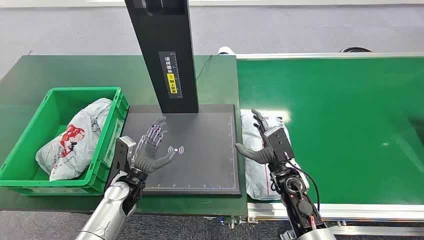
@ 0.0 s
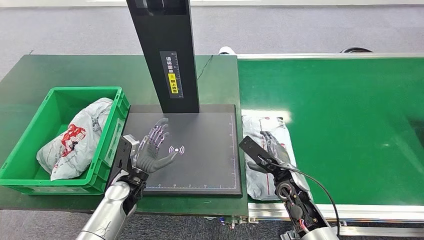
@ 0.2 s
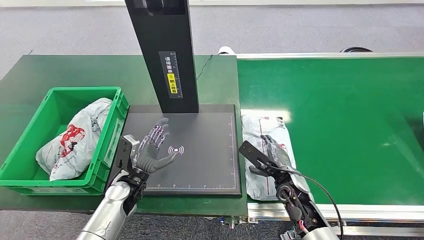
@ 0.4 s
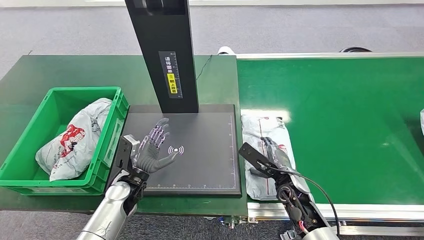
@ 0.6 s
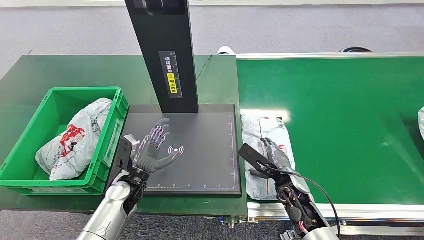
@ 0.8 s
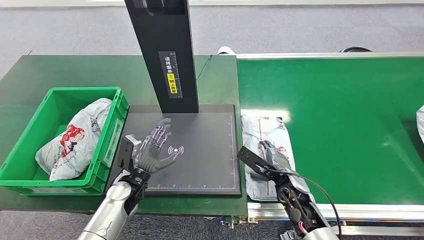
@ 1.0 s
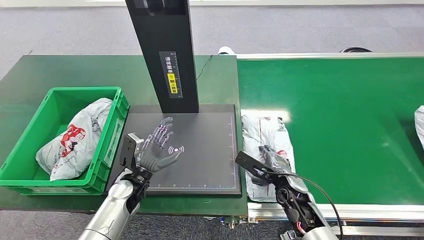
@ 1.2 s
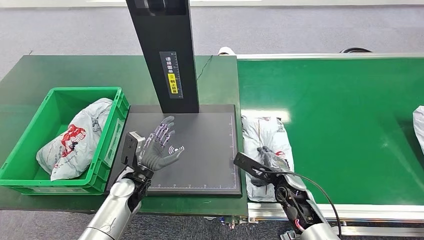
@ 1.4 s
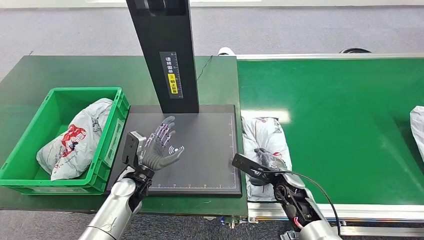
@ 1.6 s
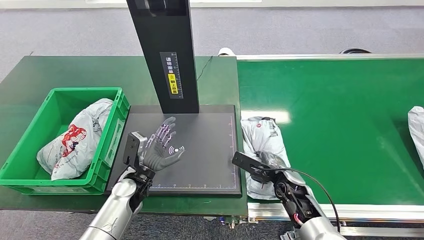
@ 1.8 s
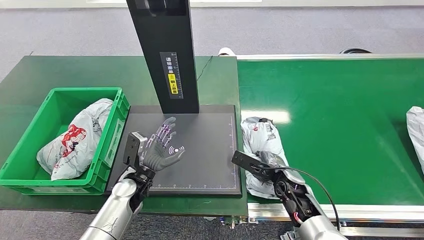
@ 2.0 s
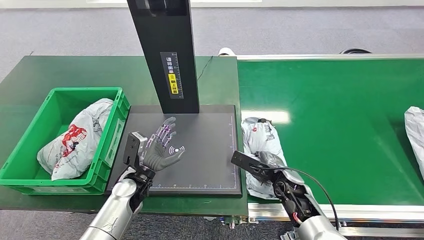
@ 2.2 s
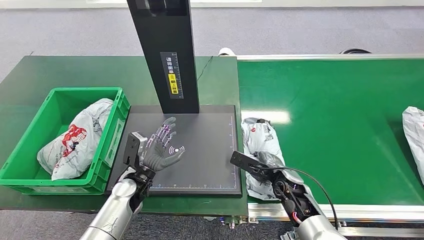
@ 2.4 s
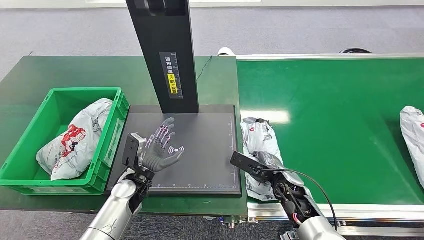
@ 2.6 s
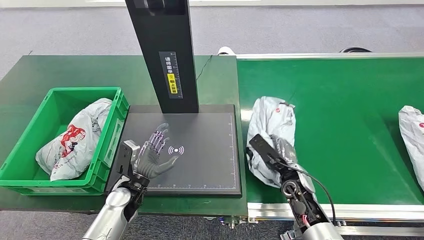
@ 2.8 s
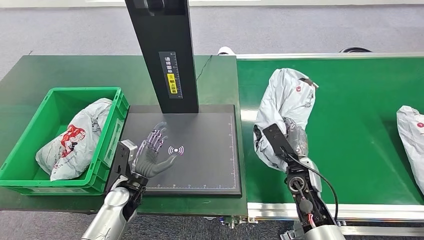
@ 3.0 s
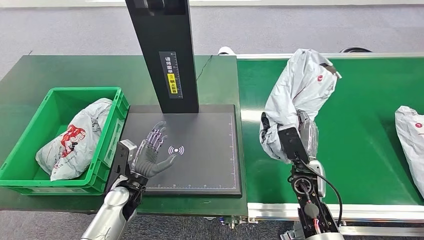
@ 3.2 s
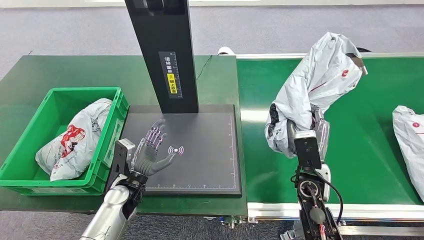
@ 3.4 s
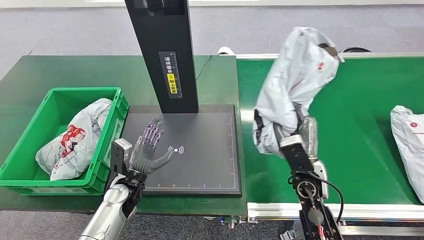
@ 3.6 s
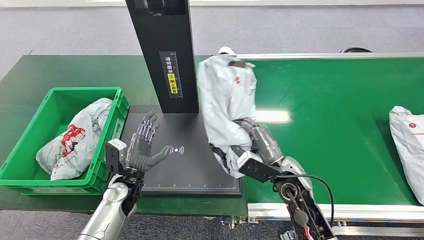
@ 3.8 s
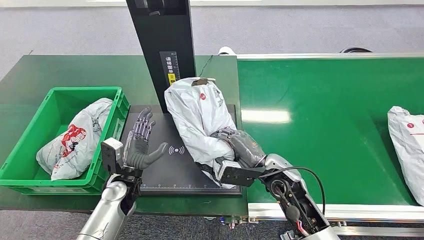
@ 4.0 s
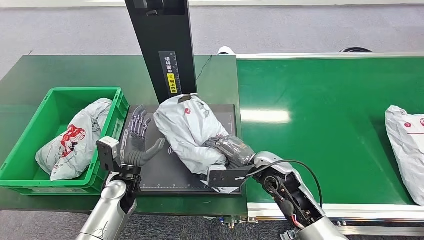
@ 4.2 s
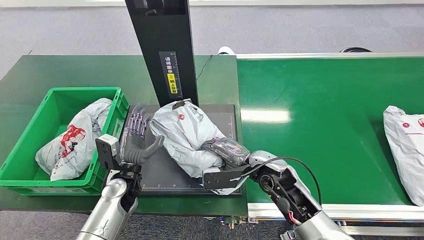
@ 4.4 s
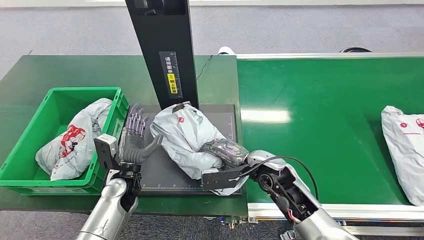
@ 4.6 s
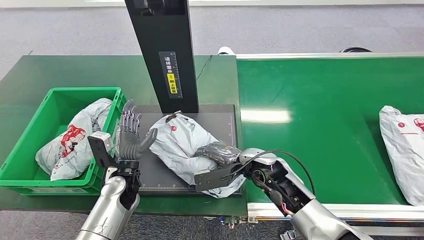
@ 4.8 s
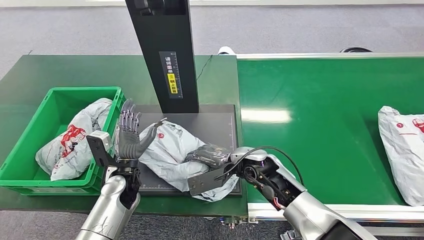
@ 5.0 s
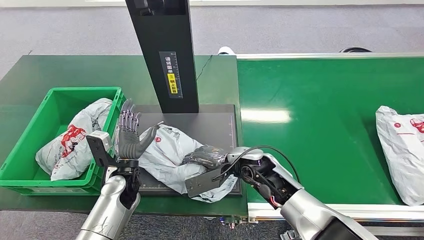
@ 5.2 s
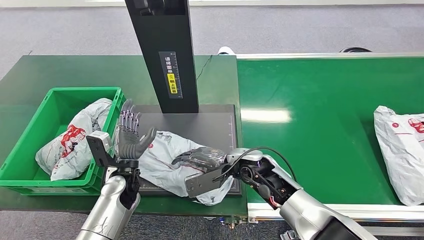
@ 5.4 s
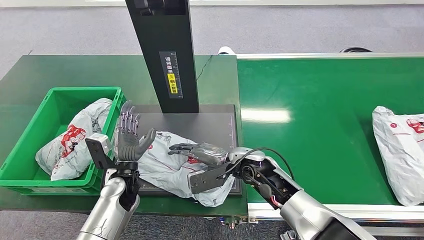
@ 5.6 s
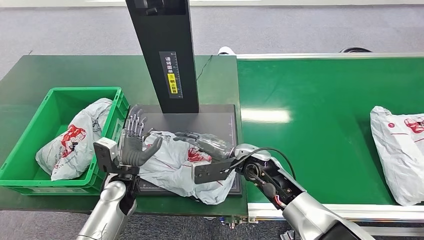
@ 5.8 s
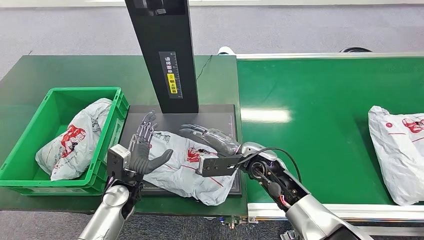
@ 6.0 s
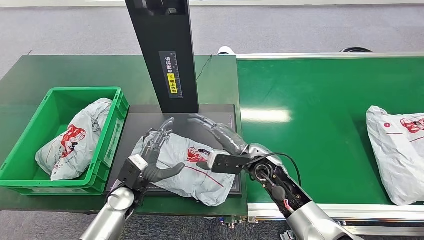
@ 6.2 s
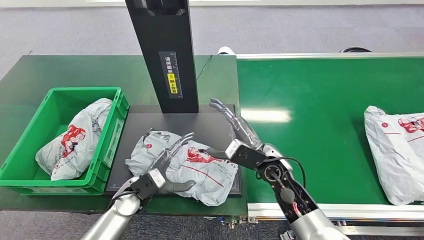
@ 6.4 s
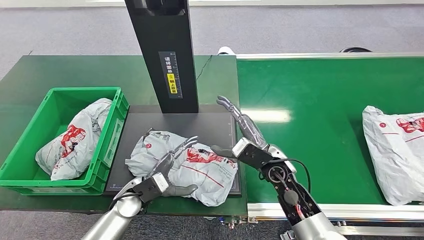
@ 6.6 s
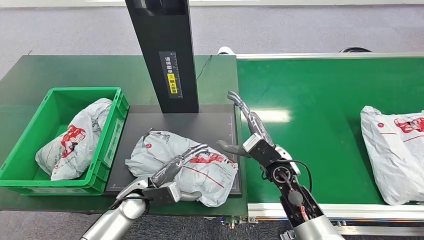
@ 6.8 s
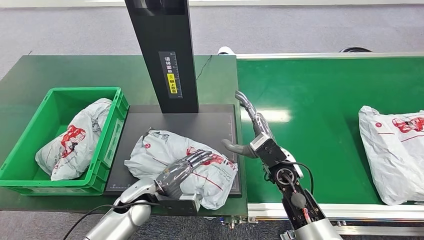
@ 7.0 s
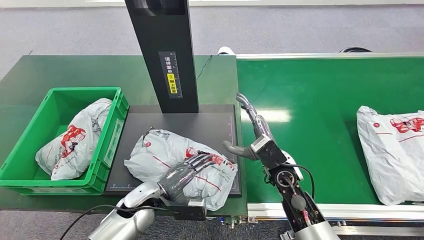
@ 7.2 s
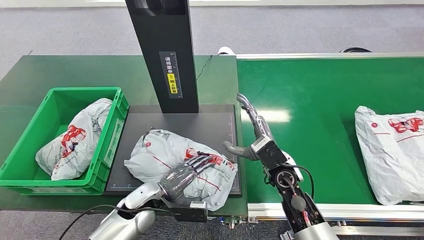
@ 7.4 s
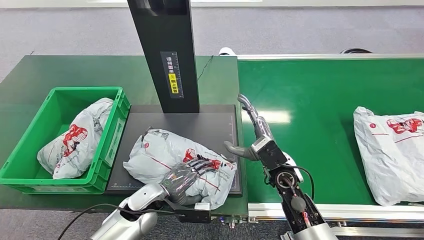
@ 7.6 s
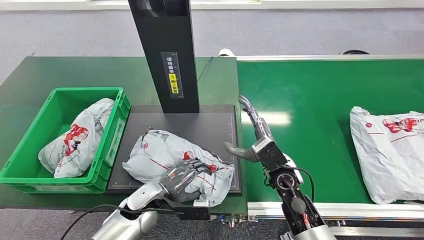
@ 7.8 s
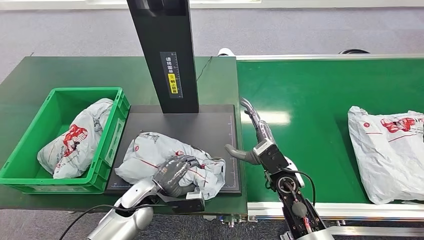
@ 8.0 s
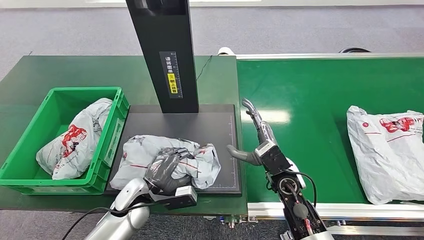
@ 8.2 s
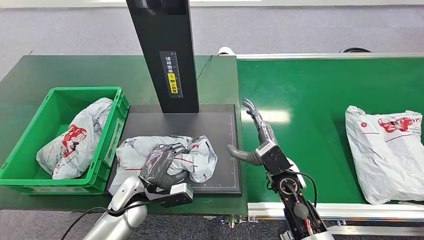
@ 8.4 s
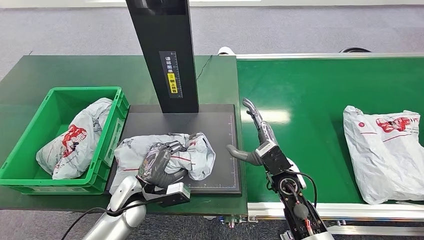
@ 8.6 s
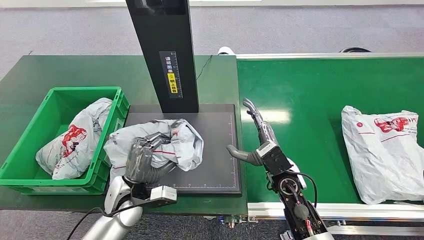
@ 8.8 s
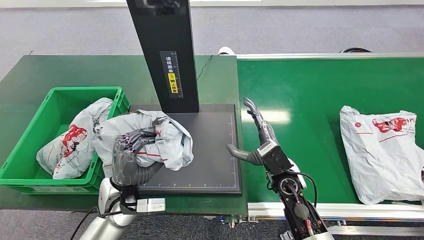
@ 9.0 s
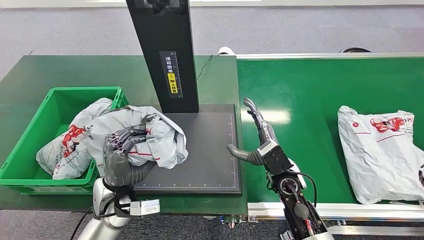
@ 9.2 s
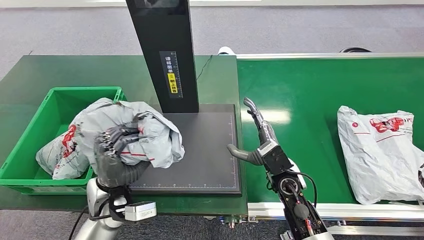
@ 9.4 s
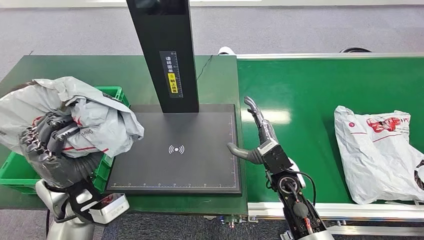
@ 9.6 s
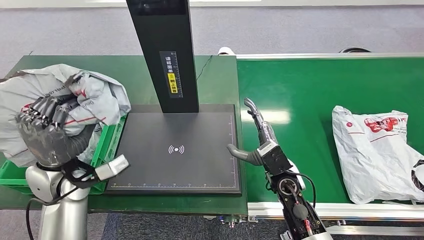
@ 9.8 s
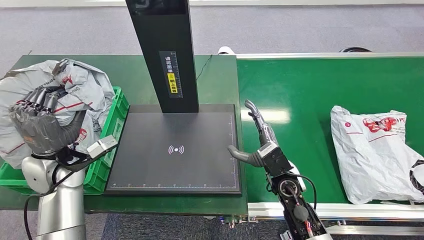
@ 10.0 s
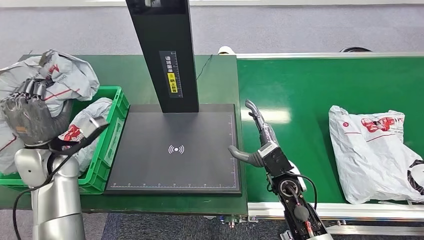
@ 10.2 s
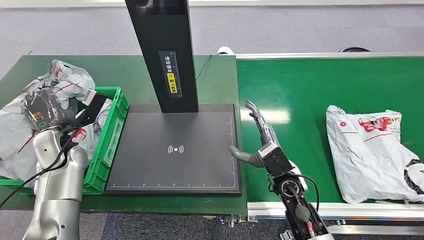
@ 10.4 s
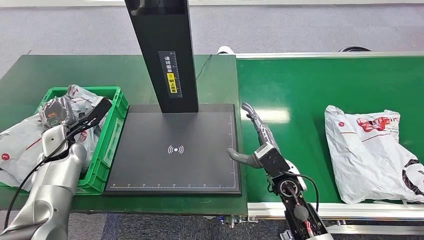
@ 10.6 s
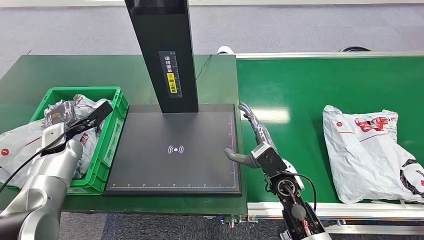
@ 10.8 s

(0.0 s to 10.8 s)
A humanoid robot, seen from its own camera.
Step, 0.0 s - 3.4 s: Pick up the package from the conveyor belt.
Step, 3.8 s - 6.6 s: Place the package onto the inbound machine.
Step, 6.8 s - 9.4 s: Pick up the package from the inbound machine.
1.6 s - 3.0 s: The right hand ends up roughly 5 cm from where it was.

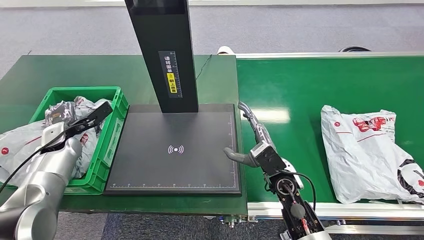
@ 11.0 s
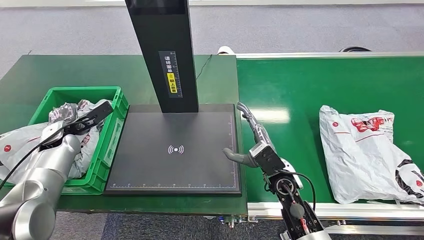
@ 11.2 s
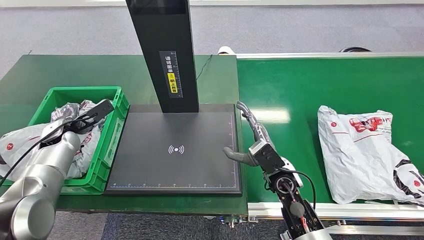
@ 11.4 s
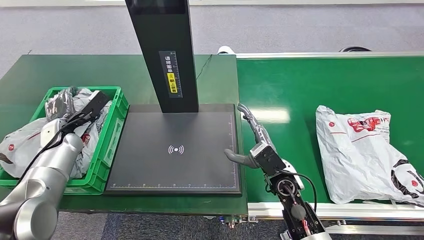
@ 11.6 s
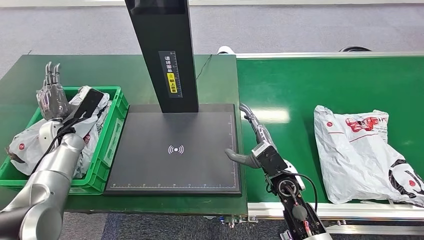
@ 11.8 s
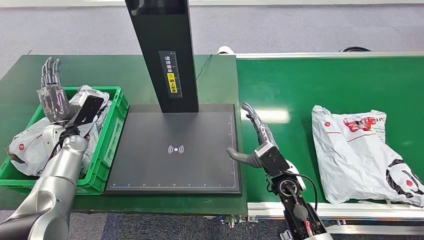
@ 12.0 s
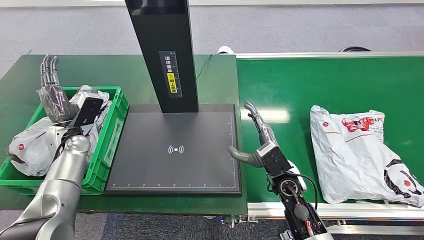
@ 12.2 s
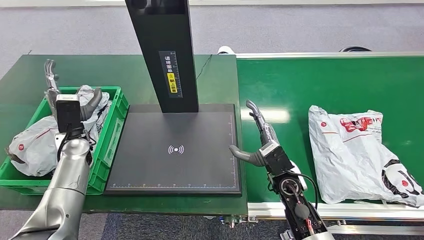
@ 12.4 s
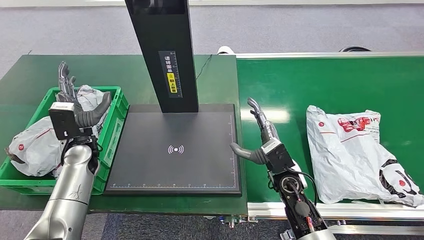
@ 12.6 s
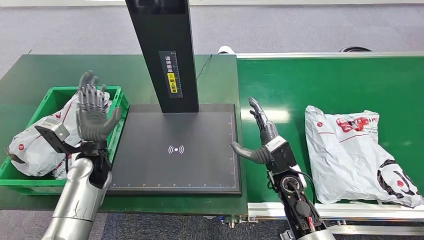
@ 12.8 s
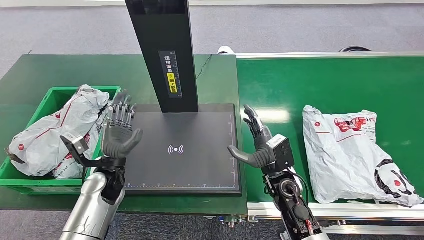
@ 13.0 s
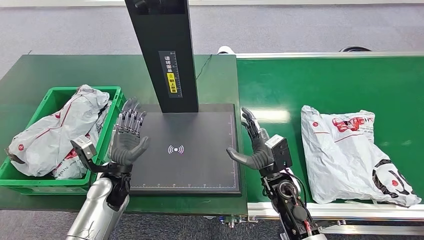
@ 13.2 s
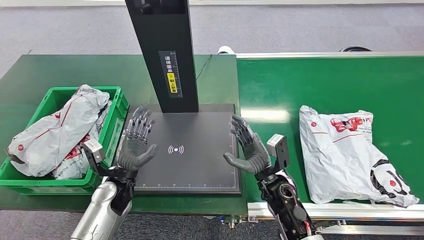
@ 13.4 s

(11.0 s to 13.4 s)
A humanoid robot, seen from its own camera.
Step, 11.0 s - 13.4 s: Place the package into the parcel locker.
